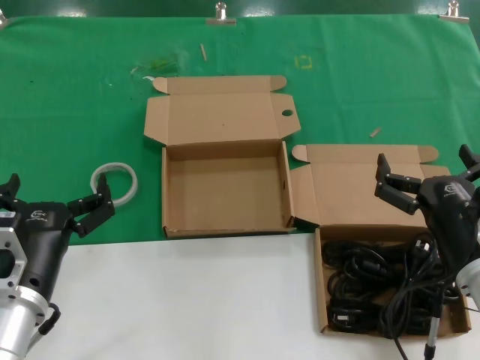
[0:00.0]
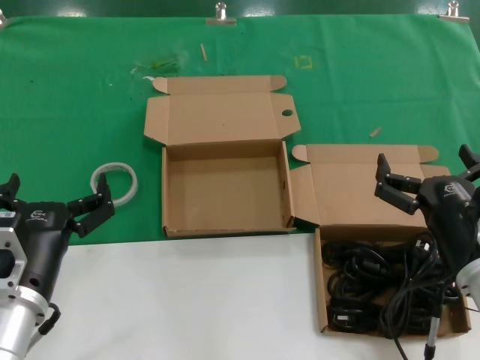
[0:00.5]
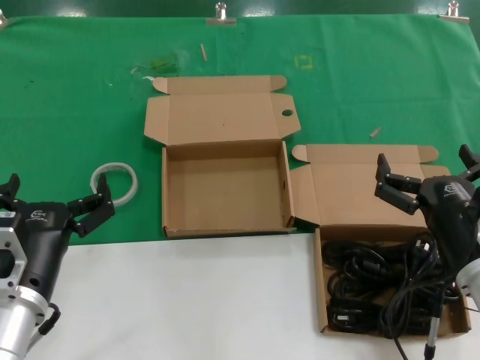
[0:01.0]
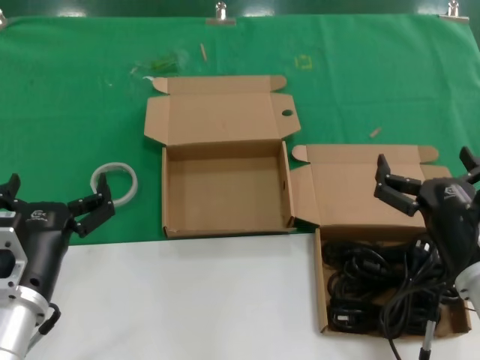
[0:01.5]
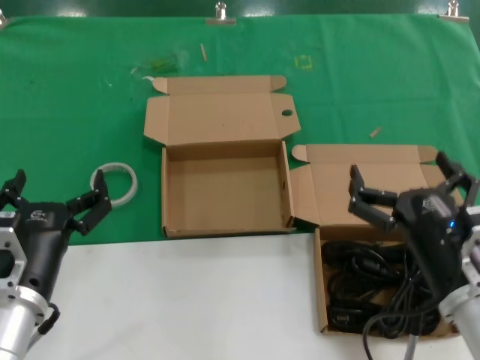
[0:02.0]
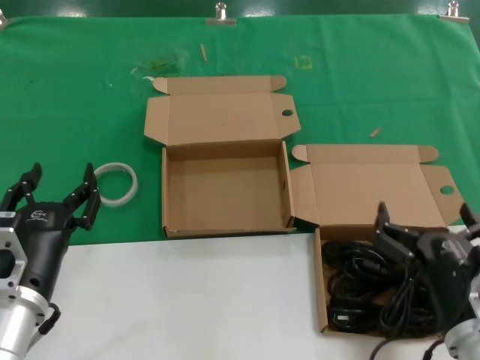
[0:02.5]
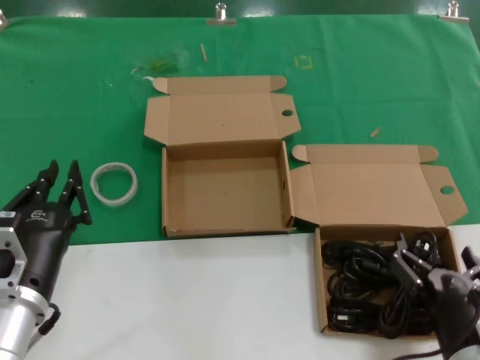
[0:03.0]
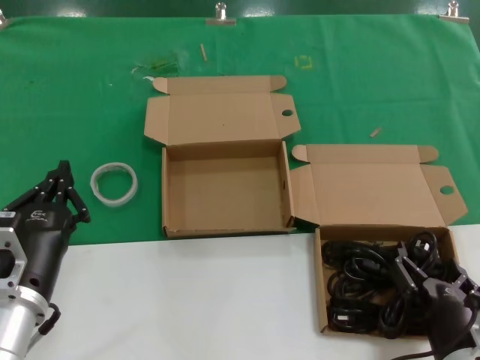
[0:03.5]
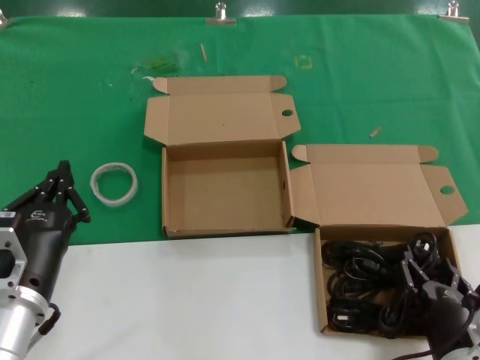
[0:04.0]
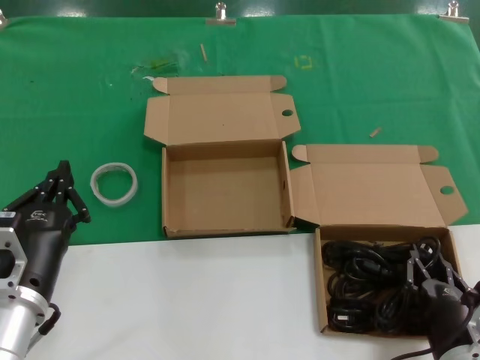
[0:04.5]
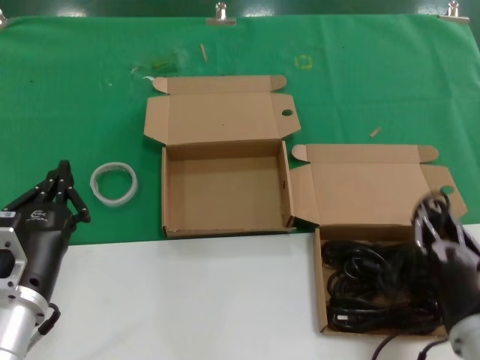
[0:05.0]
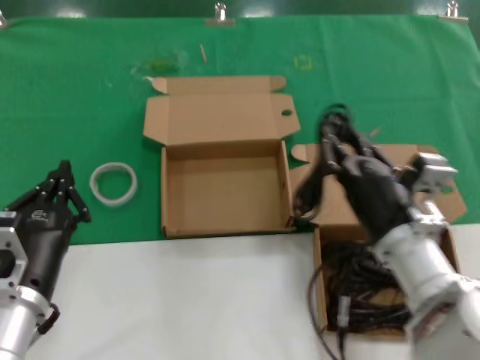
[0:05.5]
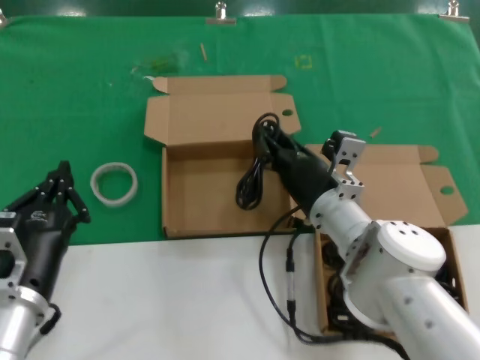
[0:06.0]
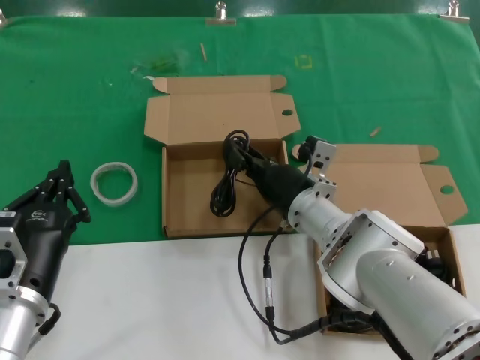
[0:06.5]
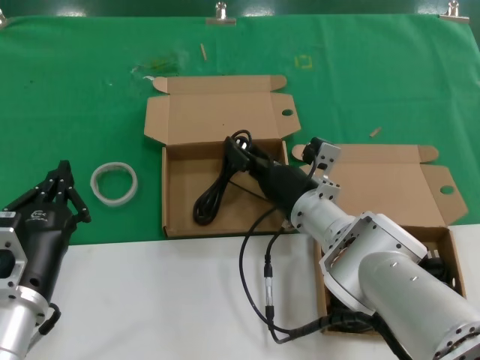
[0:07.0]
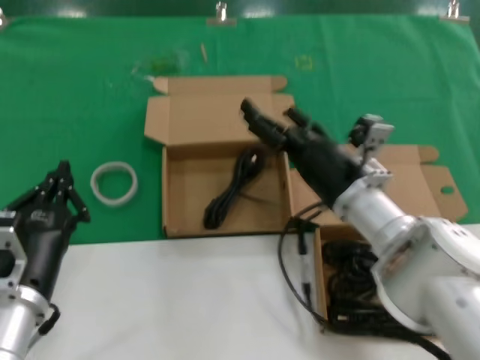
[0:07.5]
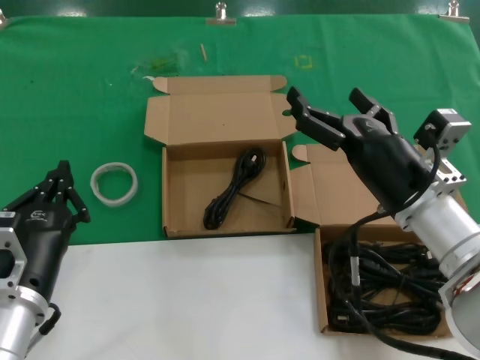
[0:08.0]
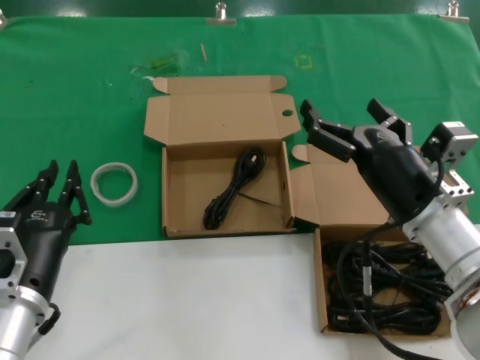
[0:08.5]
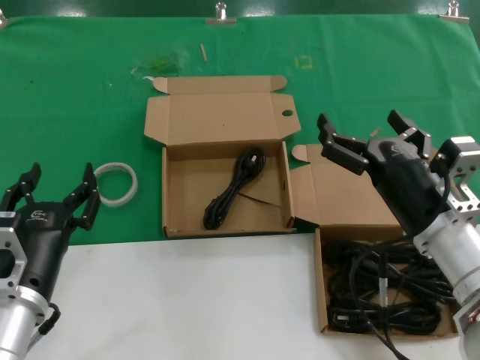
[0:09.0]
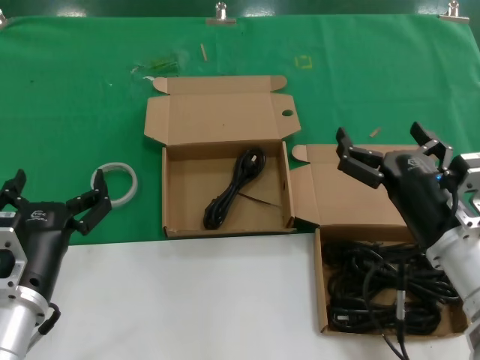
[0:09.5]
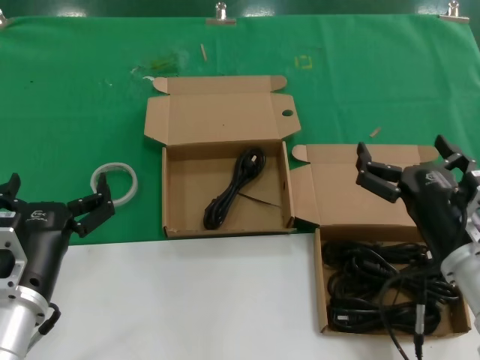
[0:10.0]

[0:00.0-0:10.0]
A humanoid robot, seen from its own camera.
Task of the whole recording: Pick up the power cord from the box containing it and place it in another box.
Step, 0:00.0 to 0:04.5: Grasp the data cable.
Step, 0:05.0 to 0:07.5: Place the data cable in the another box.
0:00.0 to 0:02.0: The right hand moves some 5 cm.
0:02.0 to 0:04.0: The right hand is displaced downward by roughly 10 cm.
0:04.0 to 0:06.0: The right hand goes some 25 cm forward, to the left and upward.
0:06.0 to 0:08.0: The right hand moves to the right, backward and upward, approximately 15 cm.
0:08.0 to 0:10.0: The right hand moves backward, some 5 cm.
